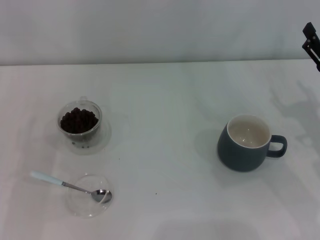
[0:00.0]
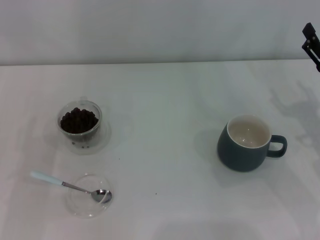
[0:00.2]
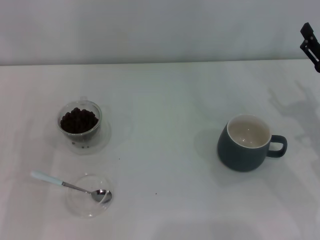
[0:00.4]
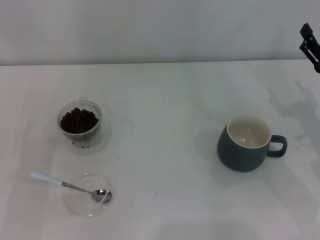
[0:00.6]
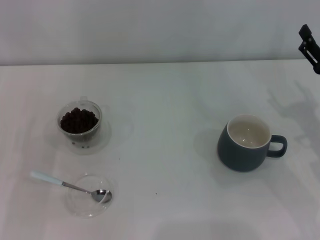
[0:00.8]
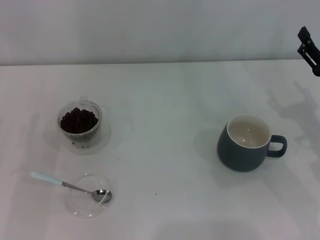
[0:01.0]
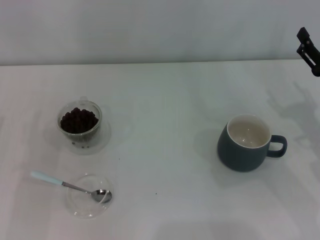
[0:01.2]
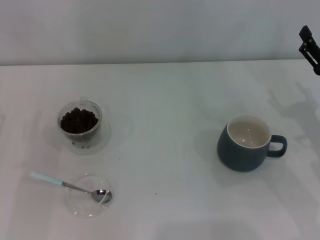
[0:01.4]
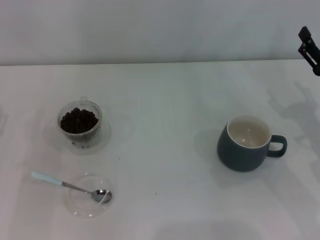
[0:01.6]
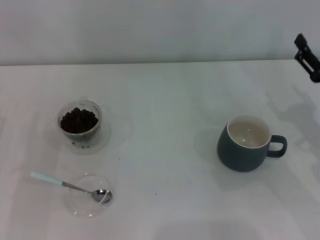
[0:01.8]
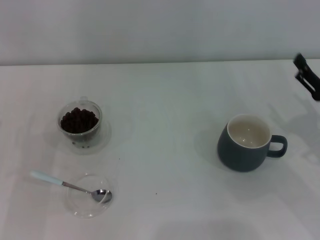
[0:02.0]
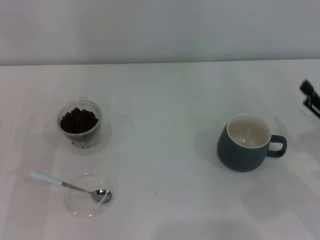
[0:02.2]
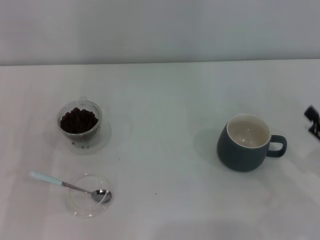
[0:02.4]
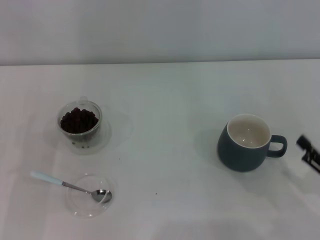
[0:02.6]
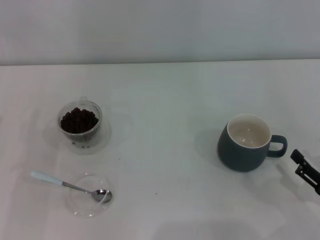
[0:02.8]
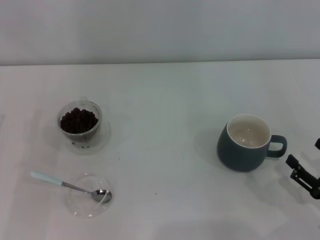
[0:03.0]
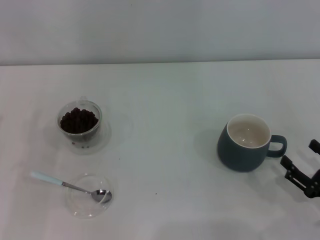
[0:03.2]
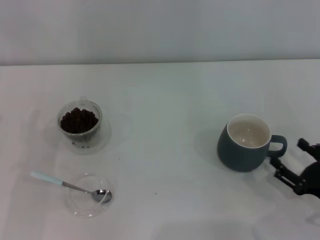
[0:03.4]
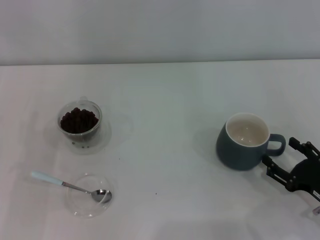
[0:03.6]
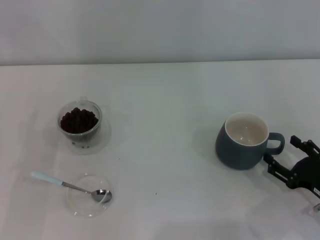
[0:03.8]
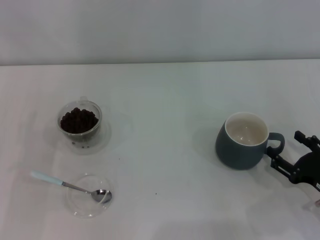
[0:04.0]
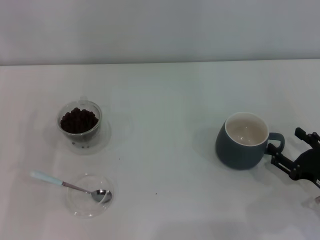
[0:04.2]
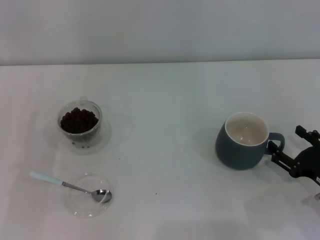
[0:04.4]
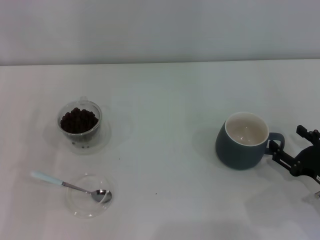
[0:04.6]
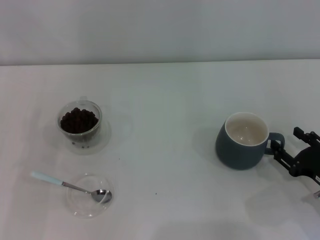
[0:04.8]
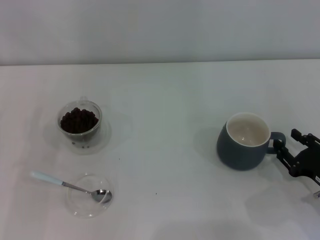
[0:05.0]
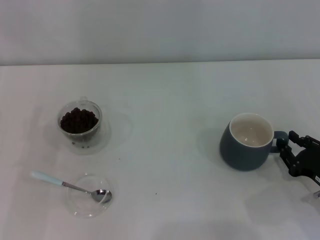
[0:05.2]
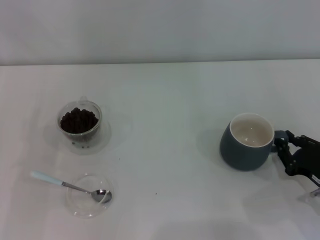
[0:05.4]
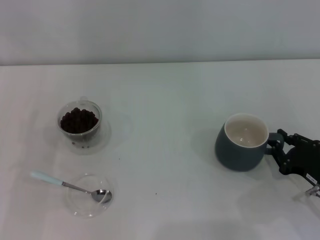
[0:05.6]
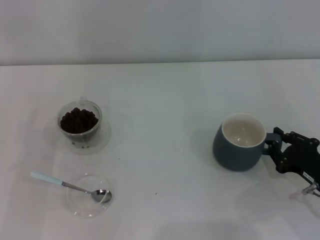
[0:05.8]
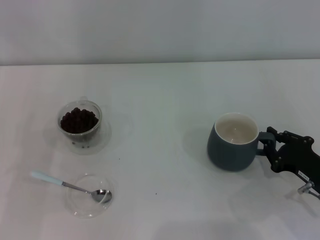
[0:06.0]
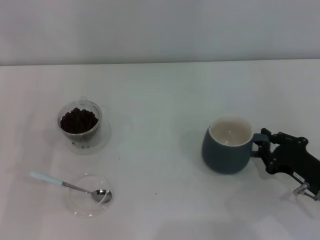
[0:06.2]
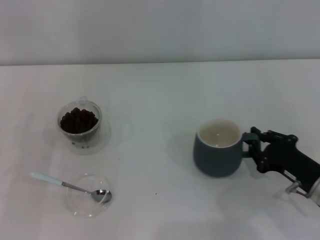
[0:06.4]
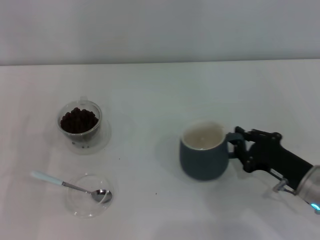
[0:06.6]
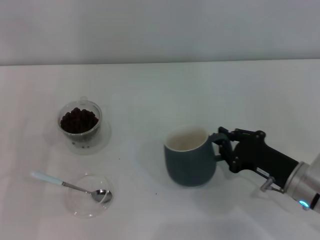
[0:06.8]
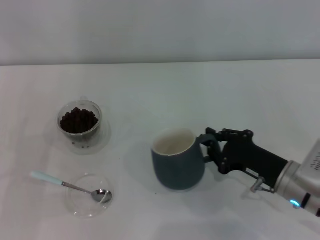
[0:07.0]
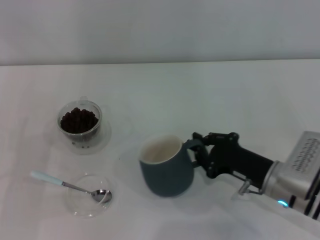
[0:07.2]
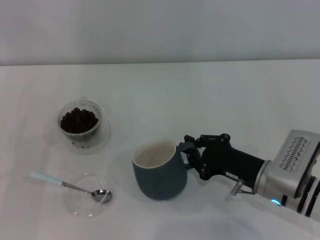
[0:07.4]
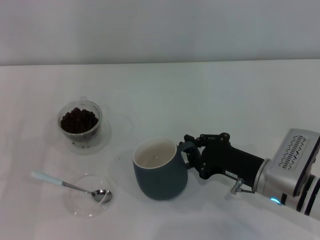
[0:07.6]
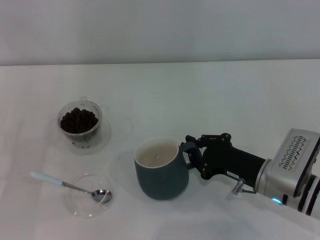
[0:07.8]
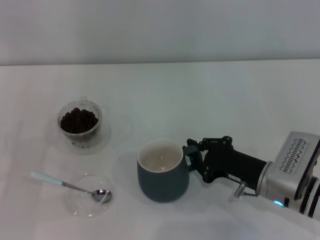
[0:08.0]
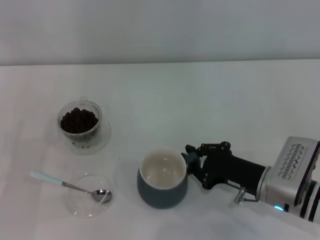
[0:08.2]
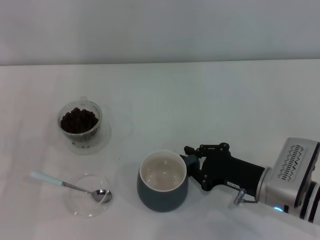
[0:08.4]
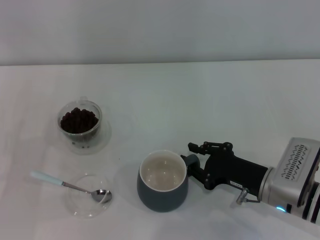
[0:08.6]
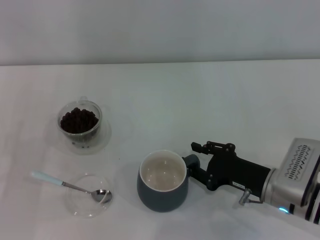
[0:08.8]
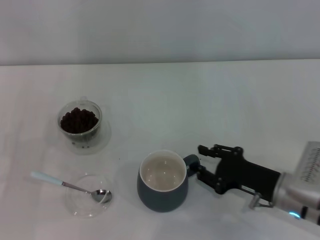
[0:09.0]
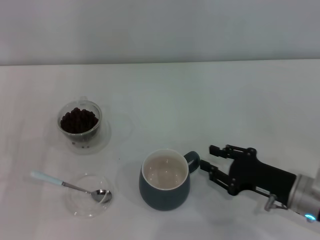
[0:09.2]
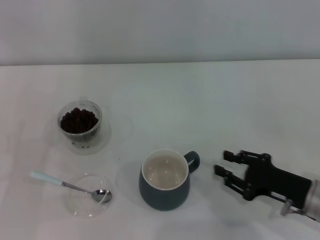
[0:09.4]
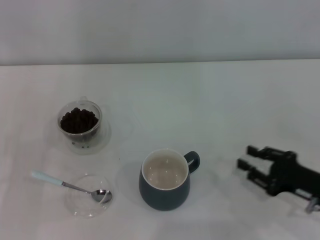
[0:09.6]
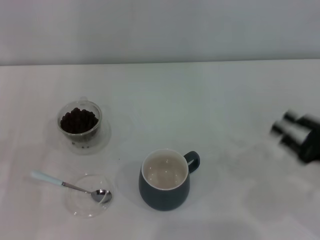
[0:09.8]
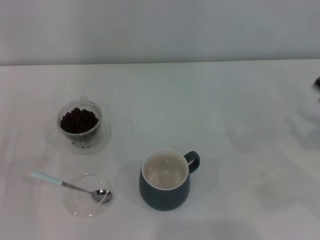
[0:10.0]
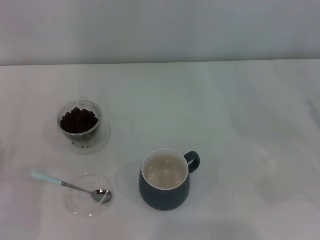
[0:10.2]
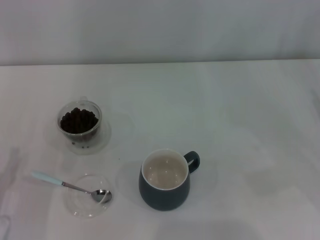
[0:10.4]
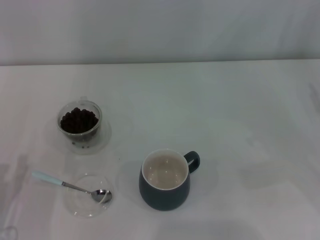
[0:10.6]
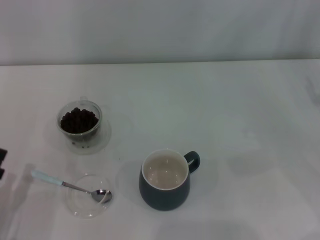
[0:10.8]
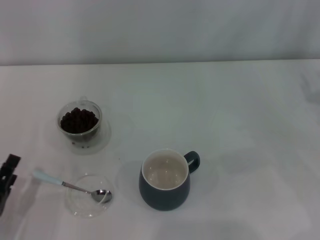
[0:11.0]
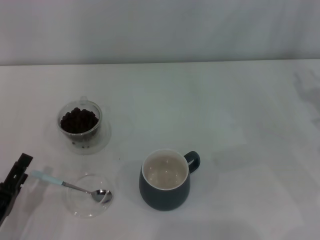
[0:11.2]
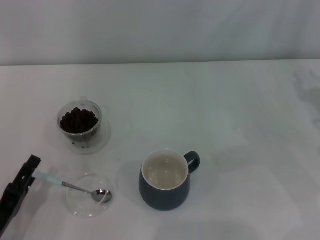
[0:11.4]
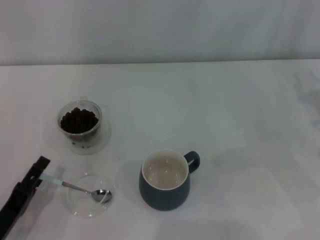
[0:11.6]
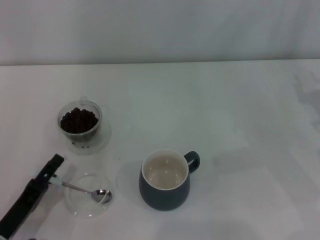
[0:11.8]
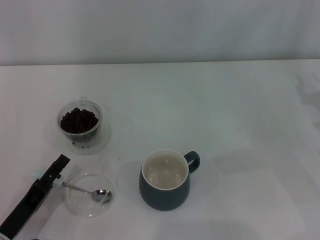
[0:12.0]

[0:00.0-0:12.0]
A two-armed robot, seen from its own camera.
Task of the whole recording: Use a blue spoon to take out the coffee beans from the glass and pour them into the gray cup.
Step, 0:00.0 to 0:09.2: Move the cup to the center of view with the left gripper.
0:01.6 to 0:03.0: The right gripper shifts about 15 cm backward and downward.
0:03.0 to 0:04.4: The right gripper goes about 5 cm forward.
0:04.4 to 0:06.0: The right gripper closes its fingers.
0:06.0 to 0:07.6: The right gripper goes some 10 cm to the left.
0:07.6 to 0:09.0: The right gripper opens.
0:09.0 to 0:10.4: The left gripper shifts some 5 cm backward; the right gripper travels to the right and upward by approximately 20 cm.
0:10.4 to 0:12.0: The left gripper shifts by about 5 cm.

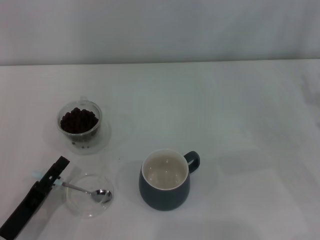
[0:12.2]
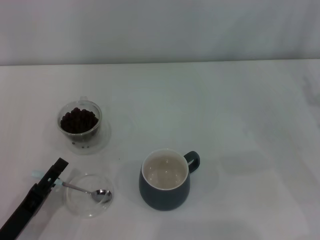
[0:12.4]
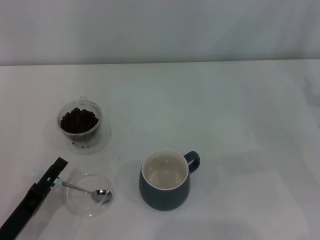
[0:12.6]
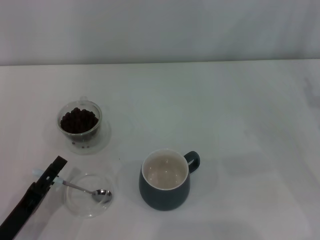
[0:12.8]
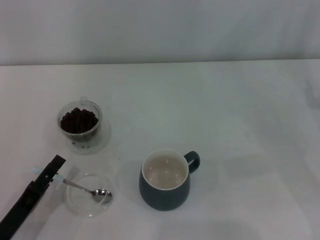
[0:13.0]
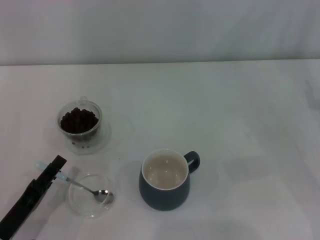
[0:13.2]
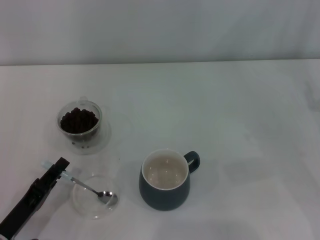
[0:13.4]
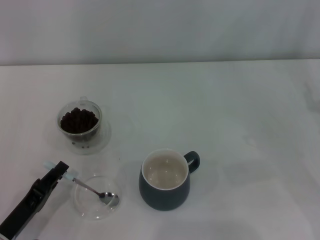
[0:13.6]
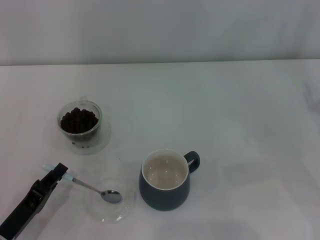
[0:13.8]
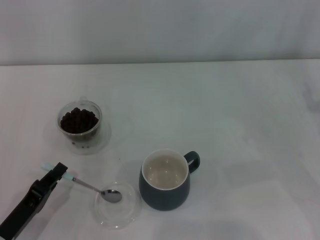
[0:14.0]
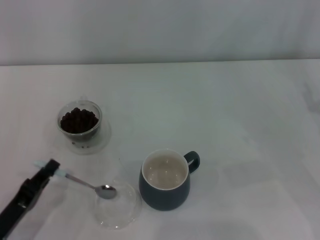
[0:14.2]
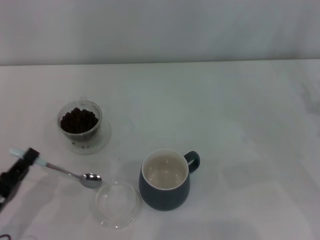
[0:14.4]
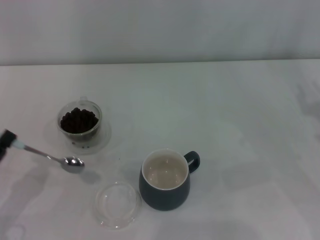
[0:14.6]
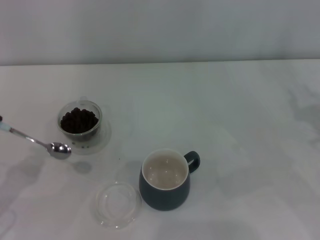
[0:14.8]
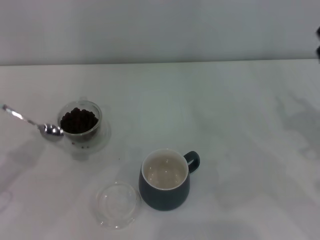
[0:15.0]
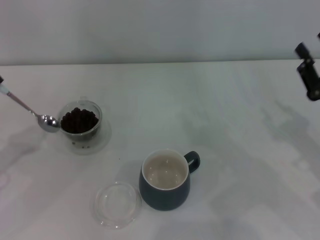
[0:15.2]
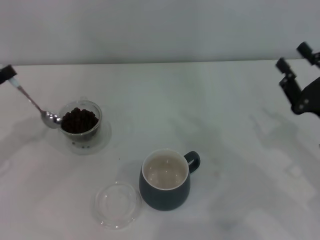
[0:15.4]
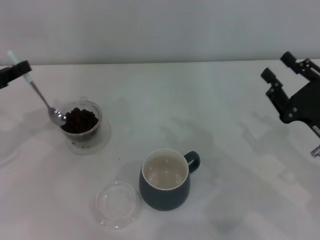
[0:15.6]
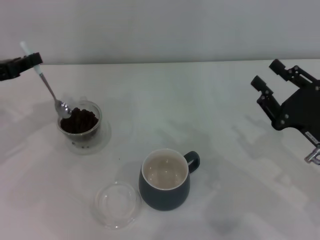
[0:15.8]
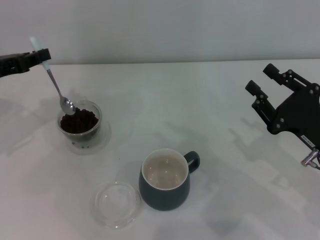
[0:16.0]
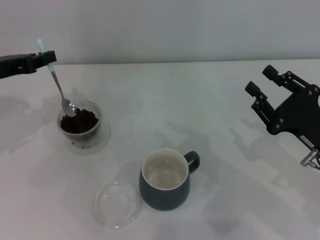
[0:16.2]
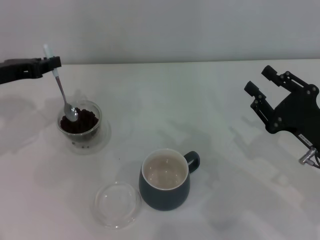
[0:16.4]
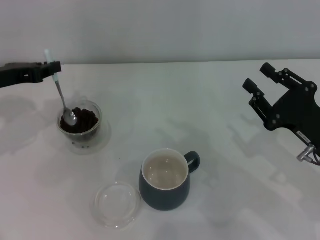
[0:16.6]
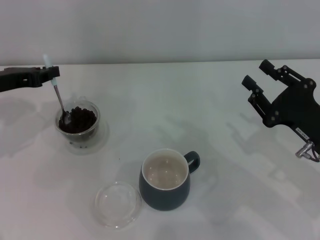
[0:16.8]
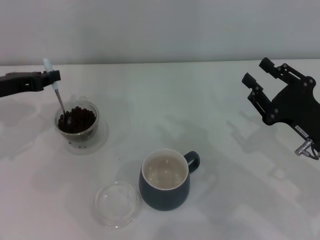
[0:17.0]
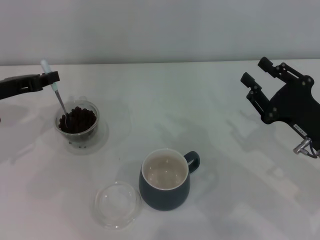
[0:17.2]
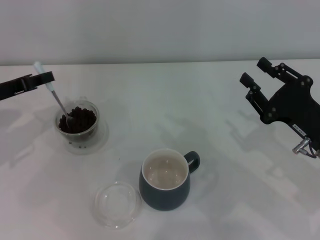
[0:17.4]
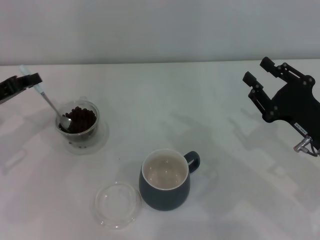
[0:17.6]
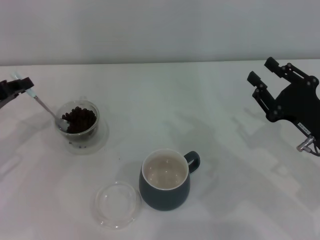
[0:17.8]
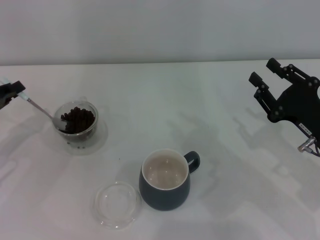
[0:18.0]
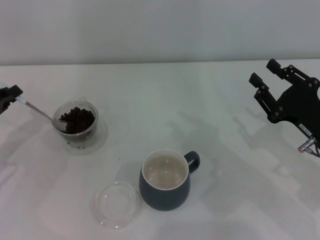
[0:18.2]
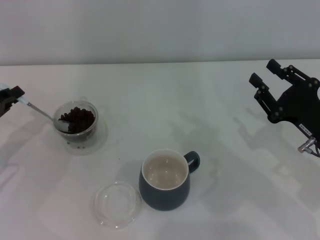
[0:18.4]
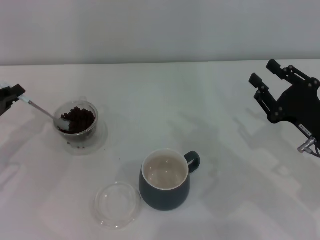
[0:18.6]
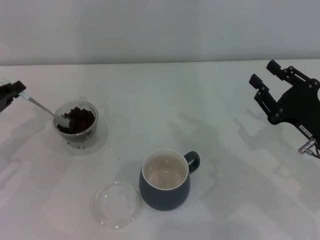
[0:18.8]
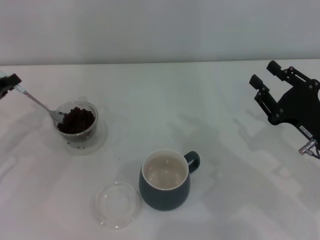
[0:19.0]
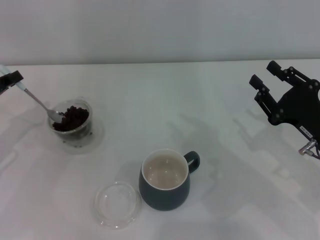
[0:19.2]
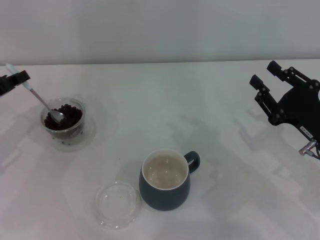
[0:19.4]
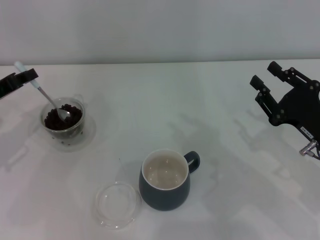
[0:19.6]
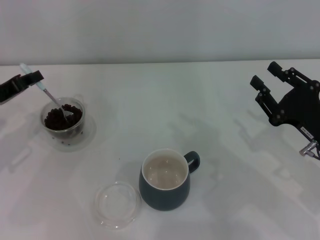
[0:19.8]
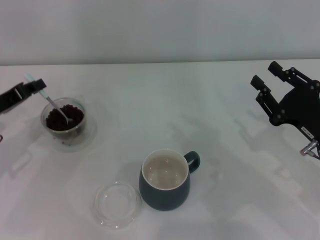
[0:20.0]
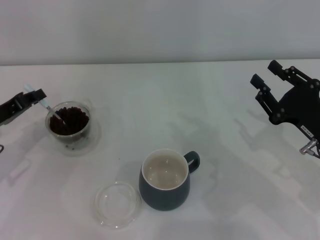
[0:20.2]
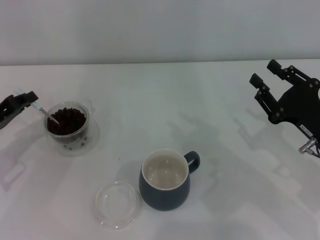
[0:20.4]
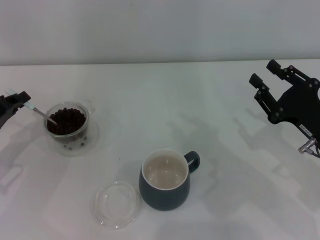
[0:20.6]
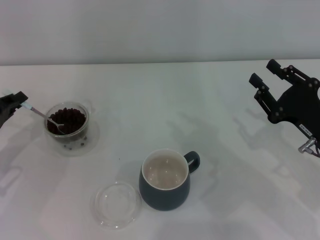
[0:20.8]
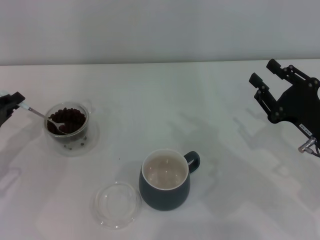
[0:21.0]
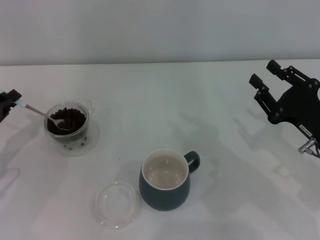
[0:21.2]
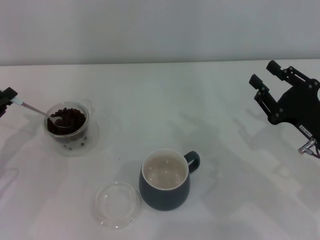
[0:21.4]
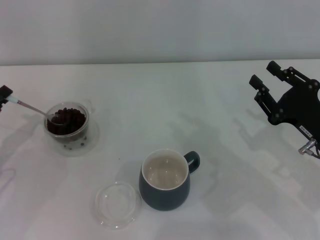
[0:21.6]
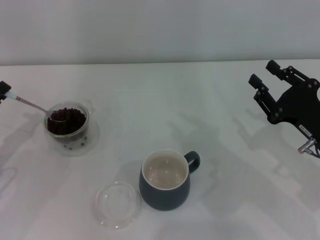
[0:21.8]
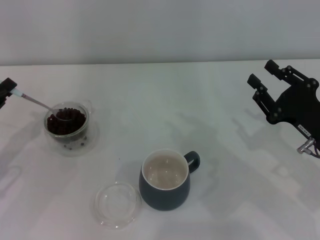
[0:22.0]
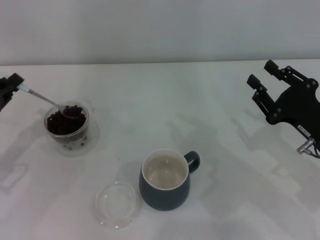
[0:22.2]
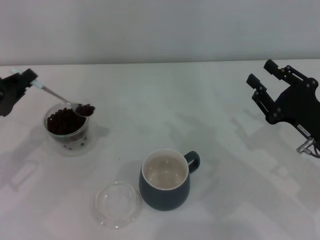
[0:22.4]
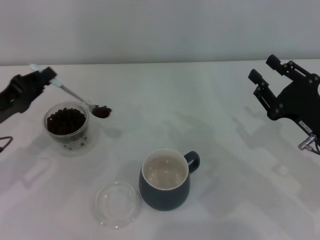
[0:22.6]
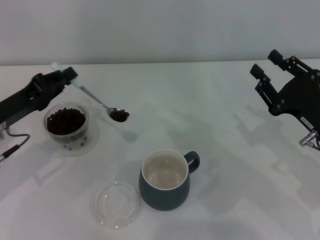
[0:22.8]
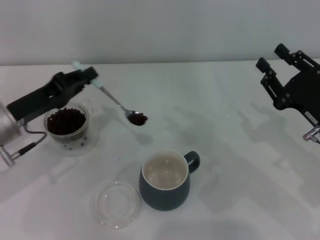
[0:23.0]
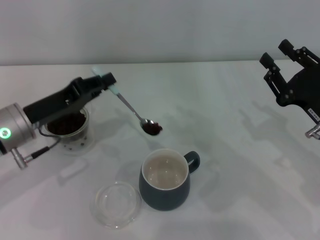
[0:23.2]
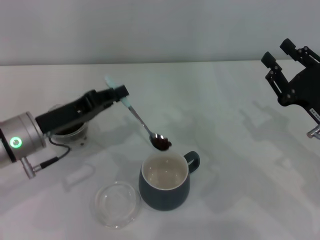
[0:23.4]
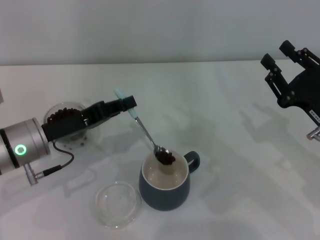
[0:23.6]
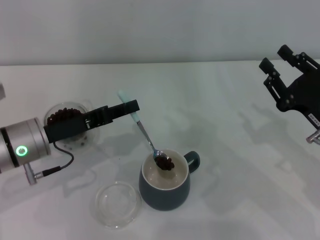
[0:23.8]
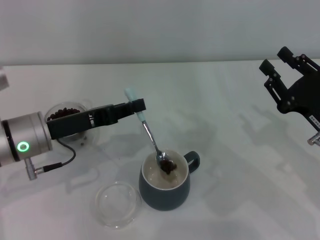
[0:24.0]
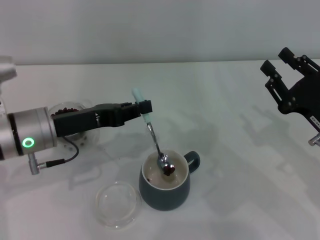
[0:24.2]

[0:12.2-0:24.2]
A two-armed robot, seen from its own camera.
Task of the whole recording: Use a blue spoon to take out the coffee beans from the glass and pour them into the gray cup.
Step, 0:12.2 to 0:14.2: Pick up the spoon with the right gripper.
0:12.2 to 0:13.8: The left gripper closes.
0:13.8 to 0:15.2: The right gripper changes place by about 5 cm. The left gripper shifts some 20 cm upward, to the left and forward.
0:15.2 to 0:16.6: The left gripper heads forward and to the right, covering some 15 cm.
0:16.6 to 0:18.2: The left gripper goes approximately 10 cm backward and downward.
0:18.2 to 0:19.8: The left gripper moves roughly 5 cm.
0:19.8 to 0:21.2: The left gripper shifts roughly 5 cm backward.
0:21.2 to 0:22.6: There are only small adjustments of the grippers.
0:22.6 to 0:24.2: The left gripper goes approximately 10 cm to the right.
